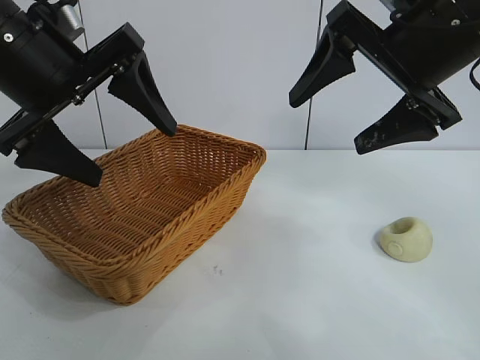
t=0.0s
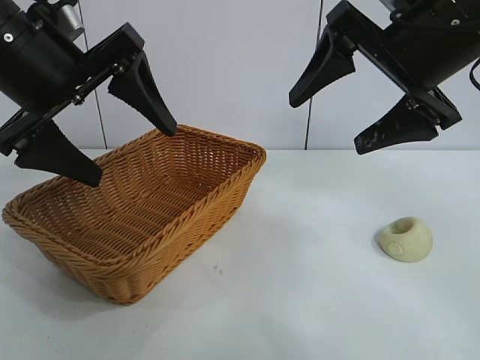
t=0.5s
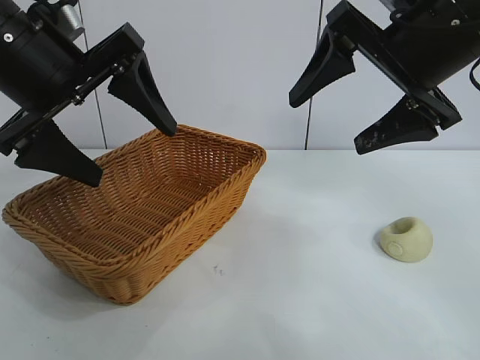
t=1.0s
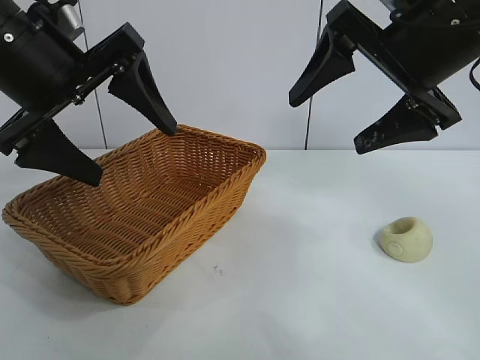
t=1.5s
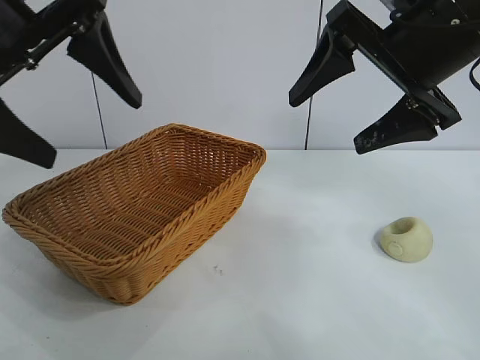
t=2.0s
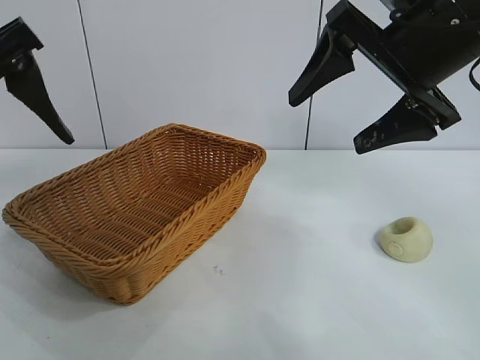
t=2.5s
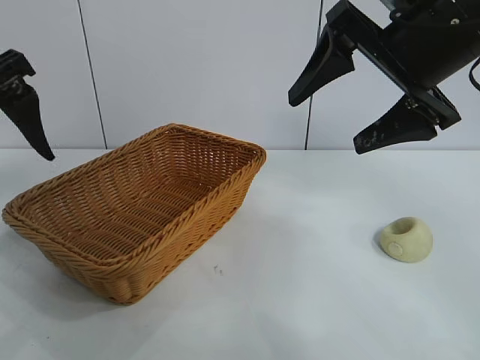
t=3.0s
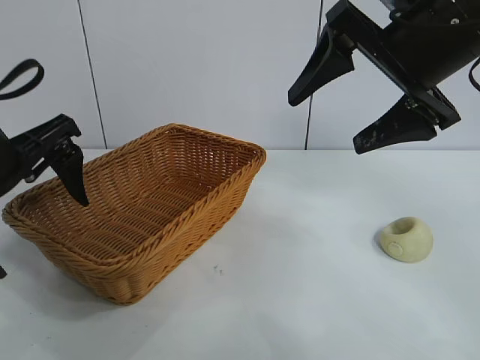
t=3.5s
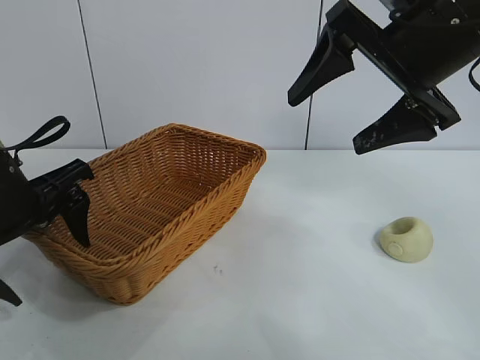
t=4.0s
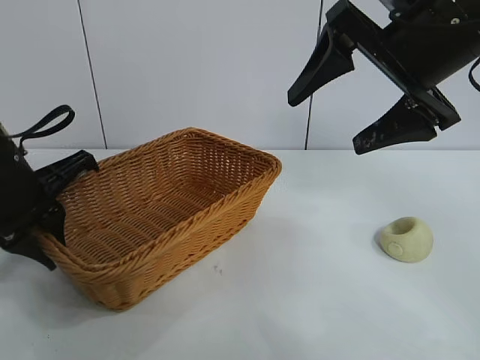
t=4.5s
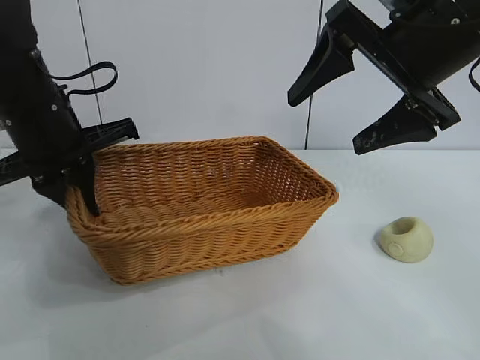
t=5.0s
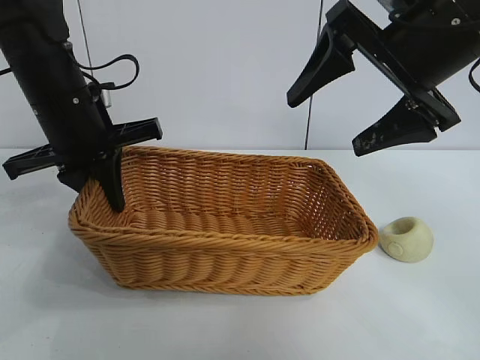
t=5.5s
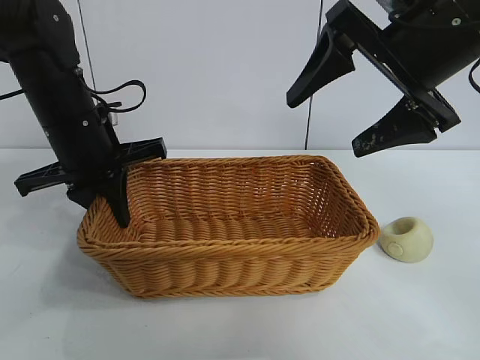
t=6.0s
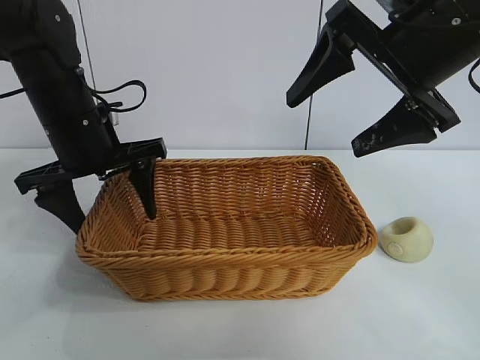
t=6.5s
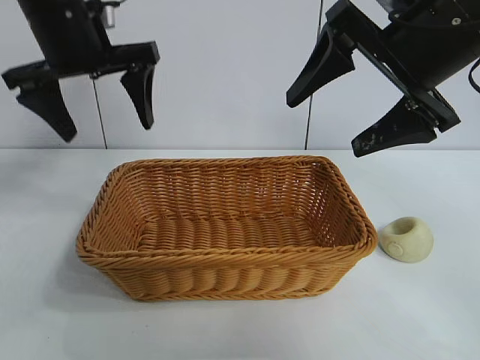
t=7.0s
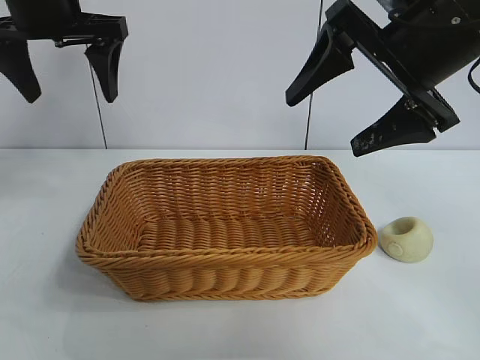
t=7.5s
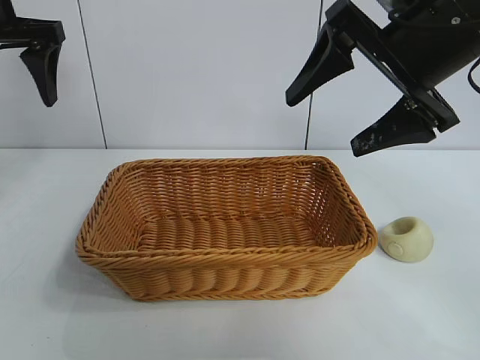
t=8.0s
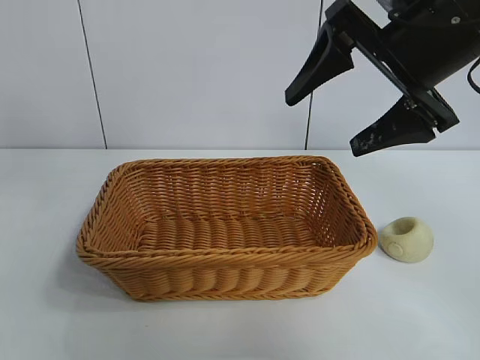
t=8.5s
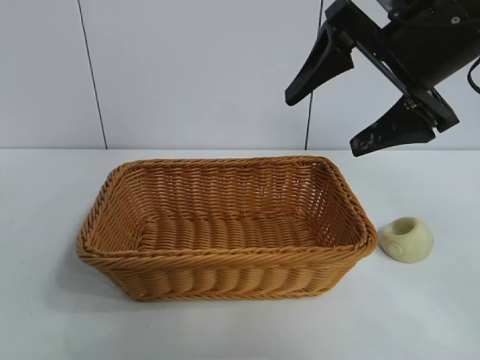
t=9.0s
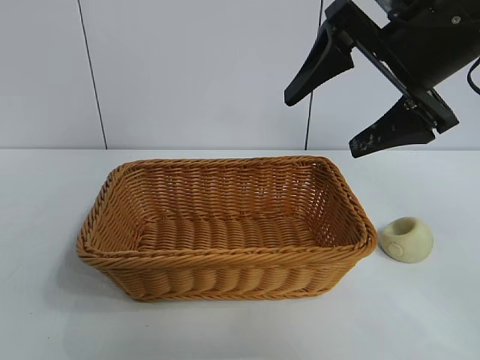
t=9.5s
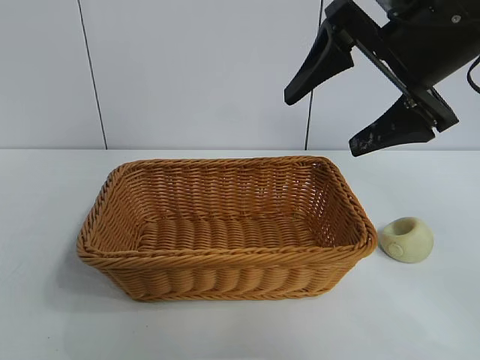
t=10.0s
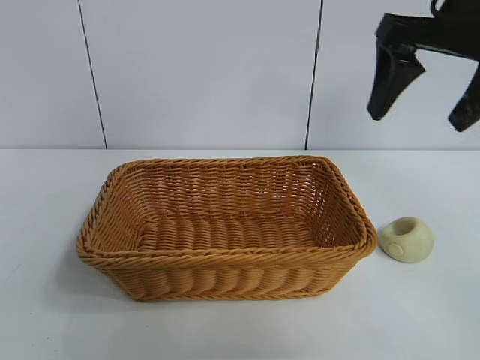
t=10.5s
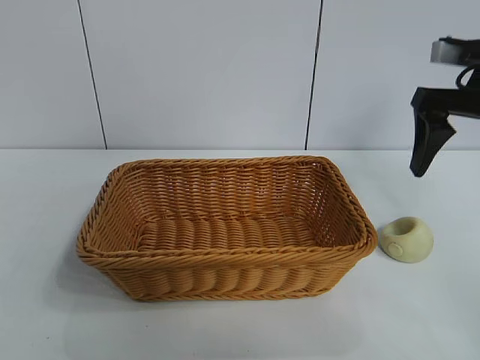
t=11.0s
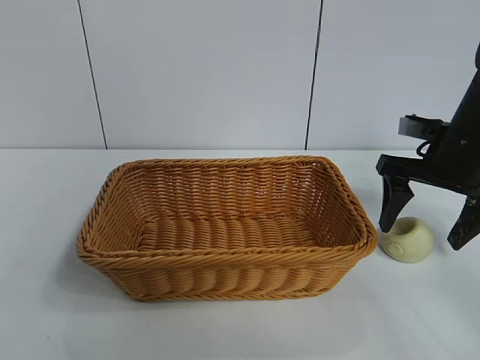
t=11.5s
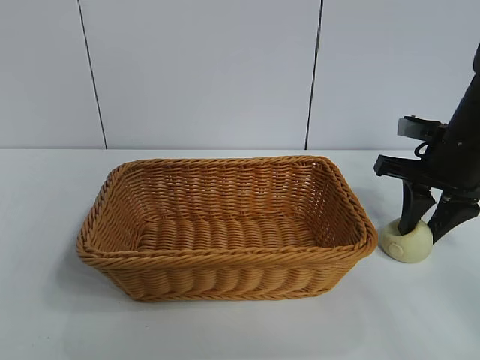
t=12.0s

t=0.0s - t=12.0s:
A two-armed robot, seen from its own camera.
Task of the whole recording: pick up the egg yolk pastry and put it into the basket.
Step, t=2.0s - t=4.0s: Grasp the basket with left gripper.
Step, t=4.5s - t=6.5s: Place the basket in the center of view with left gripper.

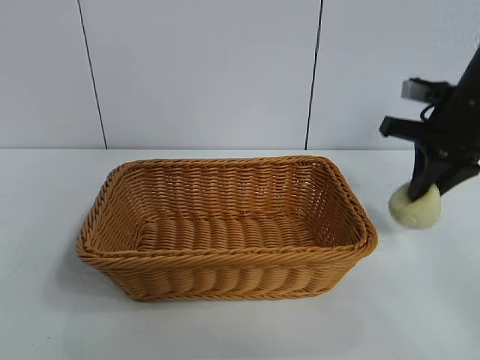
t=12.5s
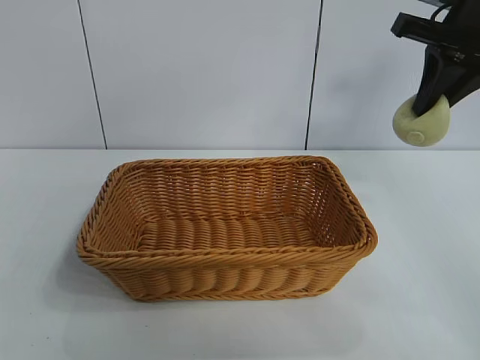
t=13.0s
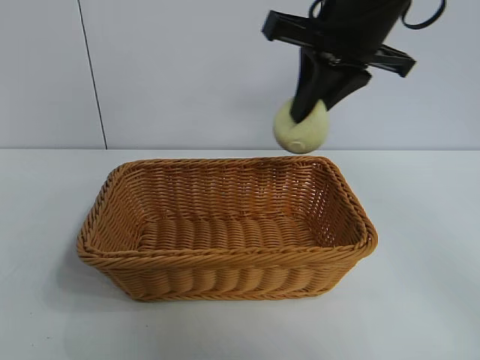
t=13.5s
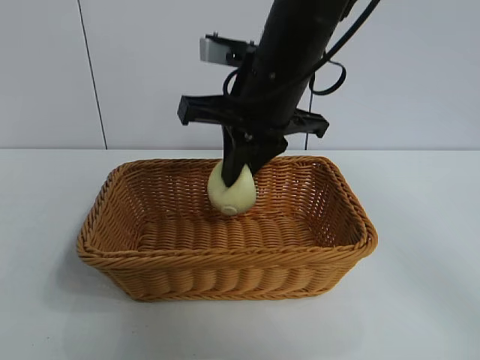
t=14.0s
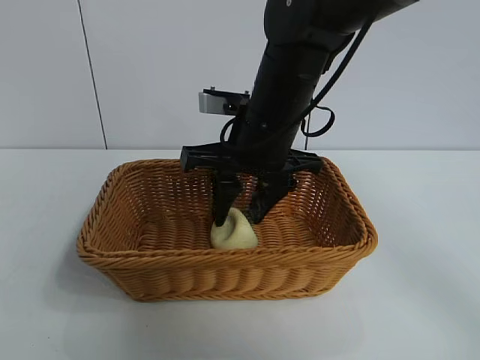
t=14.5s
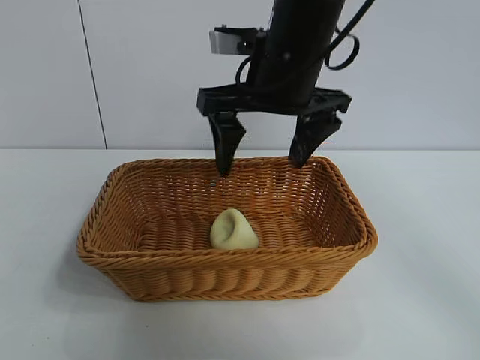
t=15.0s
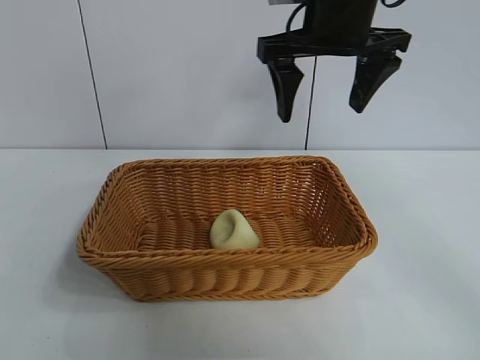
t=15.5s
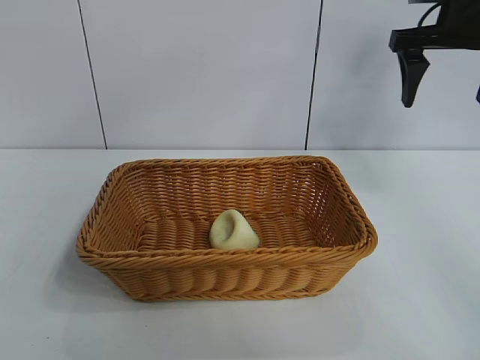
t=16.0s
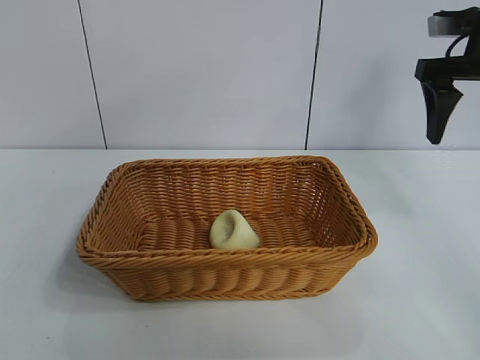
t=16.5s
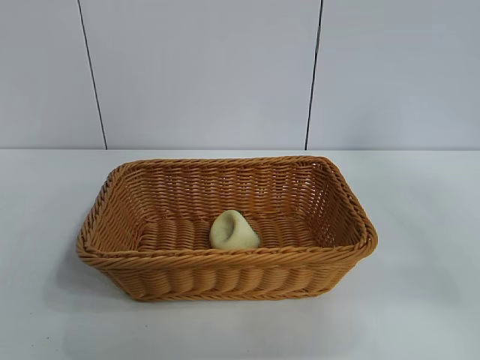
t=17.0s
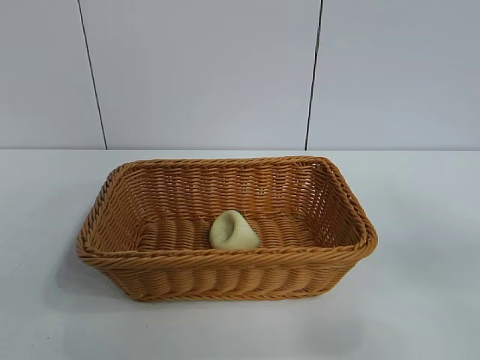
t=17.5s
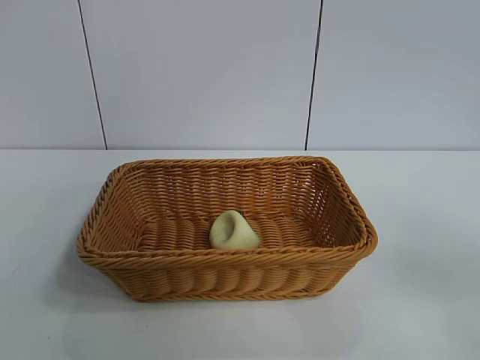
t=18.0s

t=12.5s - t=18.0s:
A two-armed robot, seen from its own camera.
Task of the whole recording: pick up the egg yolk pastry and put it into the basket.
Step, t=12.5s - t=14.5s: Place the egg yolk pastry in the basket with right gripper.
